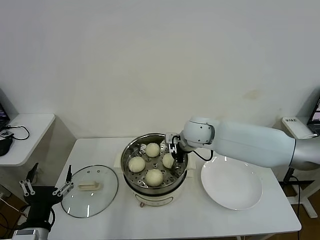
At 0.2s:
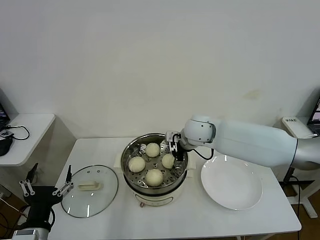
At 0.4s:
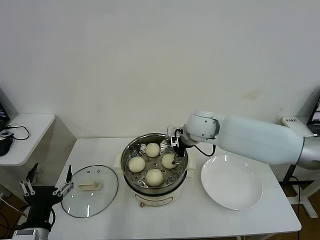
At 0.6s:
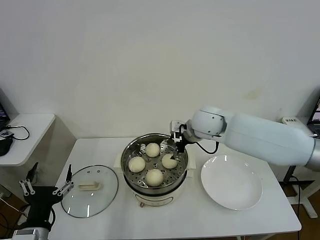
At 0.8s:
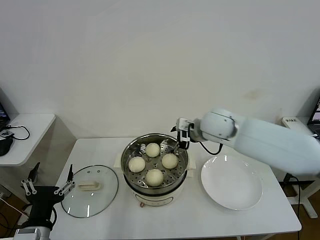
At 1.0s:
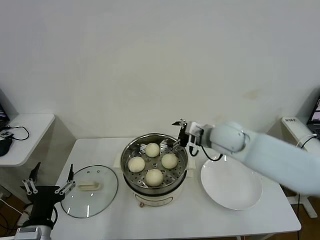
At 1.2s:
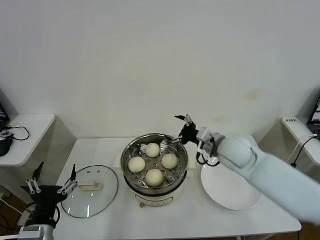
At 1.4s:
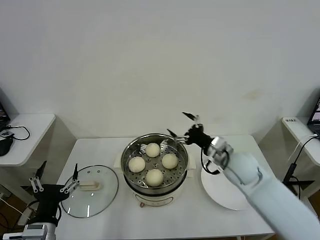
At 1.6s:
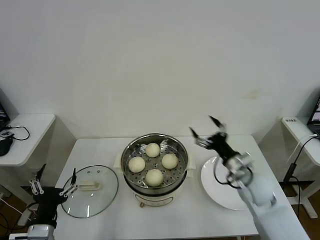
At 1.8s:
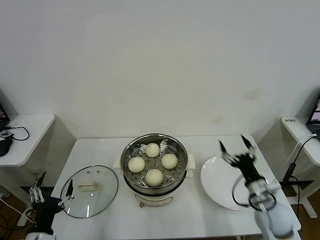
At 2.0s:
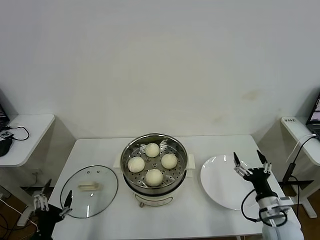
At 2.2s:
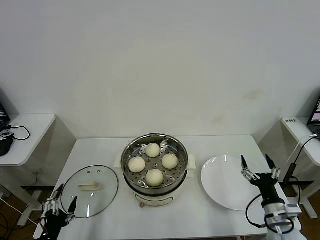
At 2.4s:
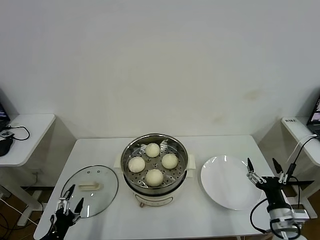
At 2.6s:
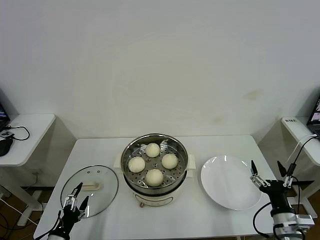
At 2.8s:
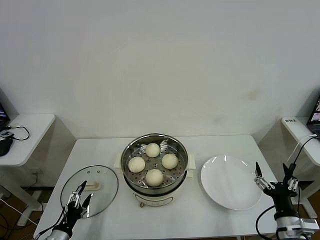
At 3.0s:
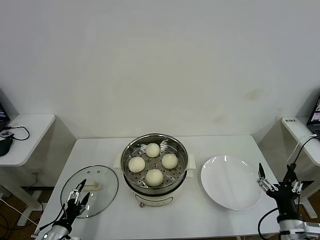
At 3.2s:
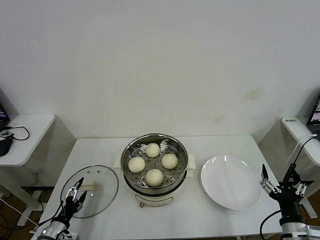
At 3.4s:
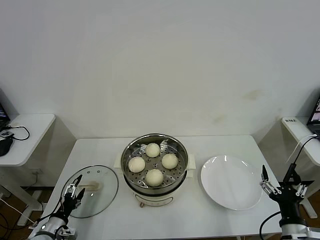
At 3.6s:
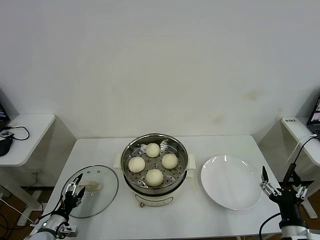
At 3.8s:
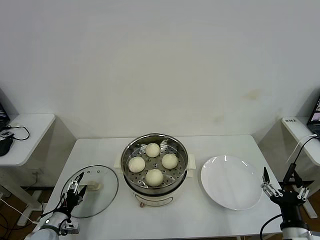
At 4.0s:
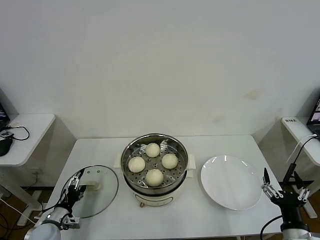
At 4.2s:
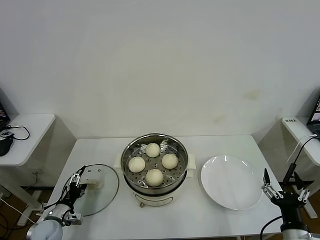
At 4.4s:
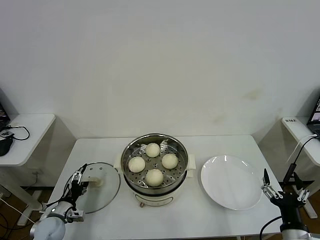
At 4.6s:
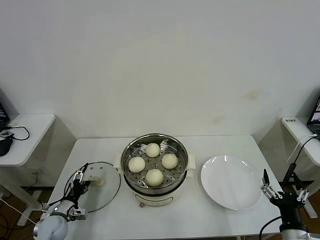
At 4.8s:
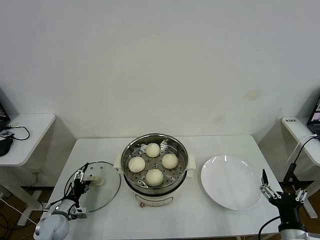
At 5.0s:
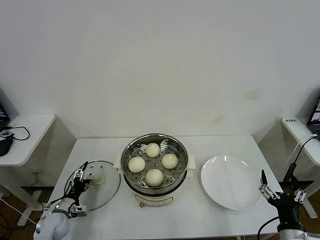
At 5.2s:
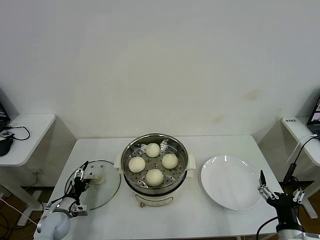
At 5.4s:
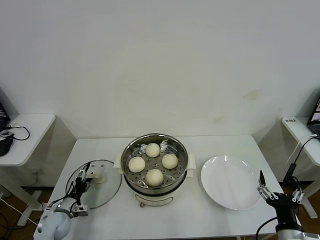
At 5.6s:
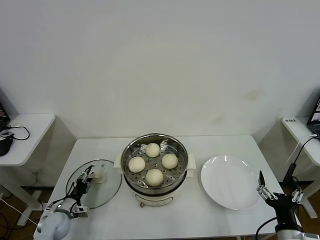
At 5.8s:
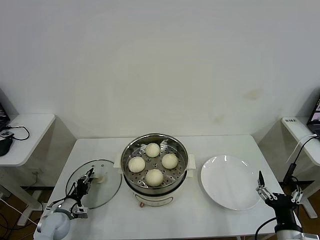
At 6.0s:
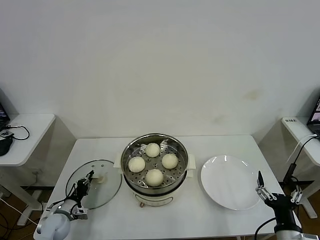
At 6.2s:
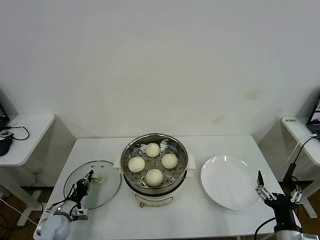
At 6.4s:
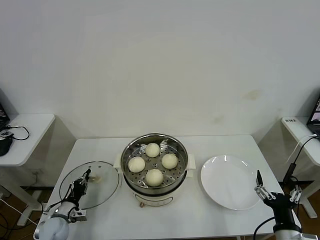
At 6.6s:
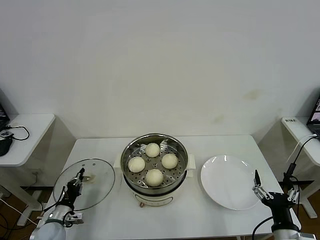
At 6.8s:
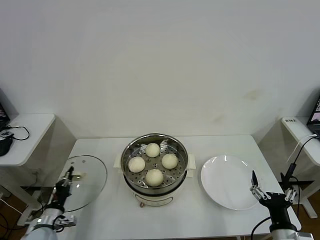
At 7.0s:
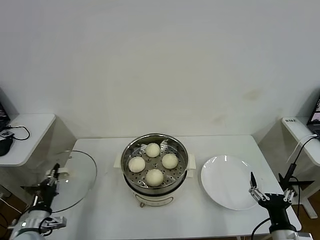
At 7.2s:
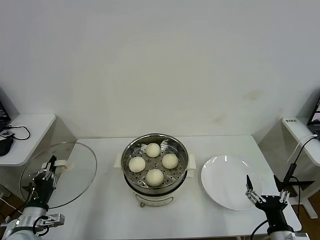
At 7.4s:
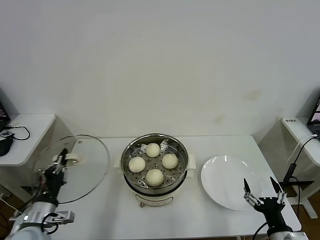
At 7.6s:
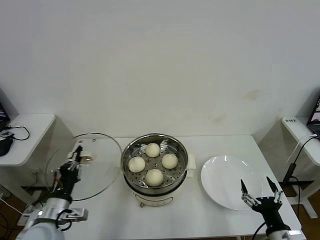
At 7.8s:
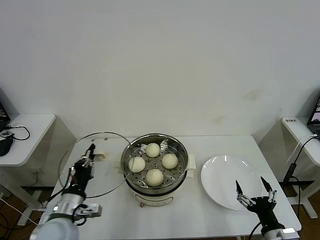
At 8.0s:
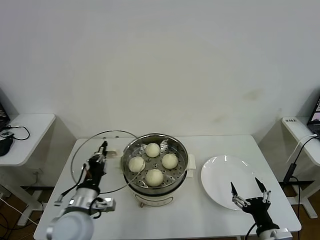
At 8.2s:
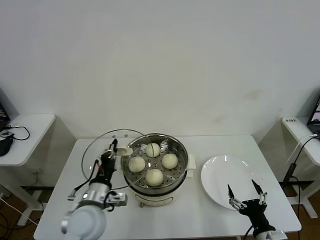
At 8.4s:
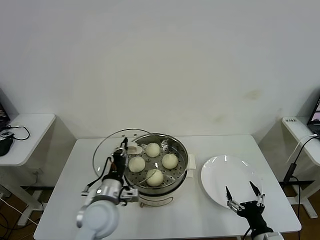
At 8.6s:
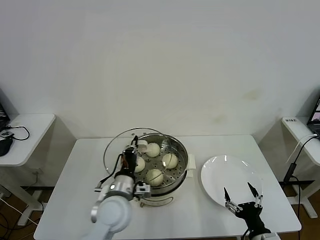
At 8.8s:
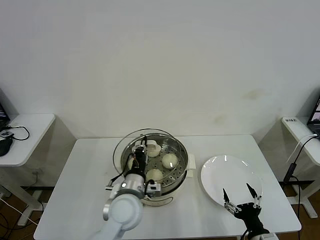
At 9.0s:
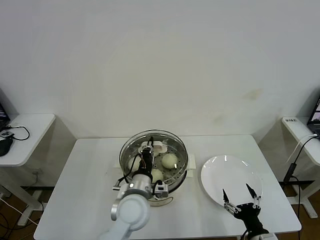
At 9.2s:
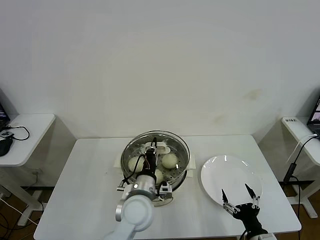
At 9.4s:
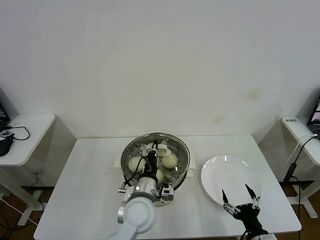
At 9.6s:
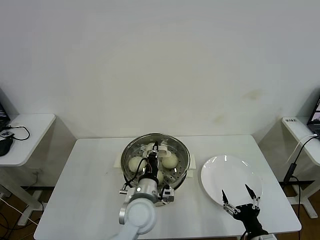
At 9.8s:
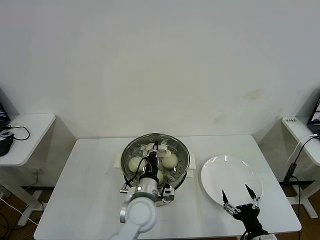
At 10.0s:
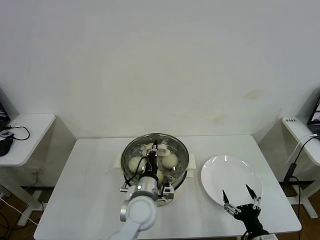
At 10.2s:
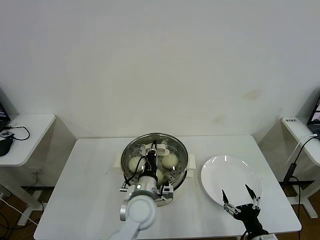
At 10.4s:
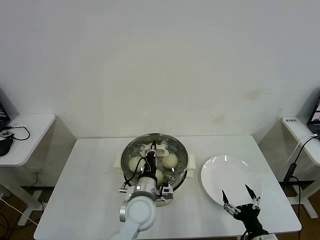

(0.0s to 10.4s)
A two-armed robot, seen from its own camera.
Task of the whole recording: take steamed baozi put them in steamer then cover it.
Step, 0.4s - 6.0s: Grasp the pot lid with left gripper.
0.0s - 1.4s: The right gripper travels to the right and backward by approximately 15 cm, and opens up.
1.4s - 3.0s: The right gripper shifts about 25 cm backward and to the right; the left gripper heads downward and to the left, covering about 20 cm.
3.0s - 4.4s: The left gripper heads forward, covering roughly 10 cm.
4.4s - 6.0s: The left gripper closes its fingers.
6.0s - 7.4s: The left gripper shifts roughly 20 cm upward and backward.
7.4s - 9.0s: The left gripper heads to the right, covering approximately 25 cm.
9.0s - 10.4s: The grippers make only small movements.

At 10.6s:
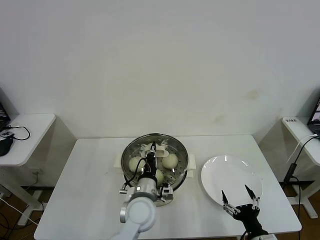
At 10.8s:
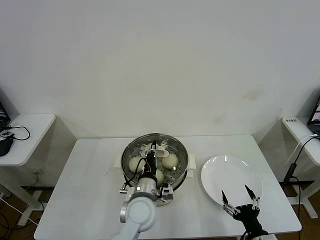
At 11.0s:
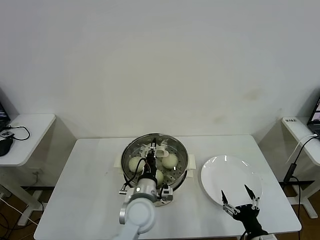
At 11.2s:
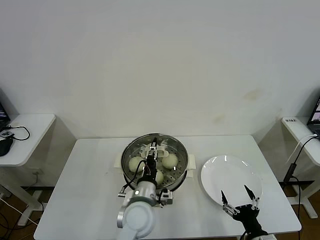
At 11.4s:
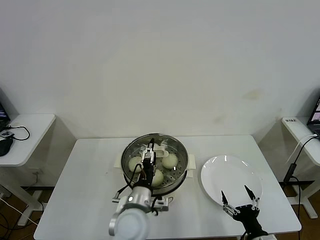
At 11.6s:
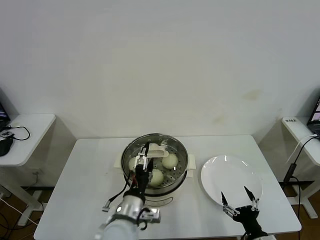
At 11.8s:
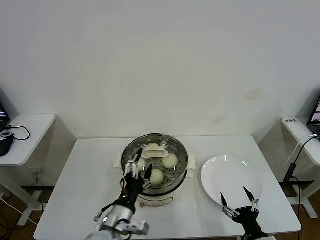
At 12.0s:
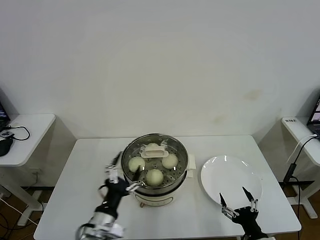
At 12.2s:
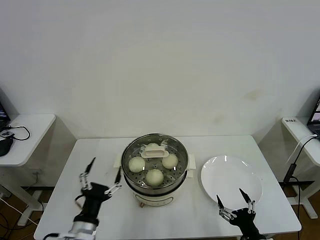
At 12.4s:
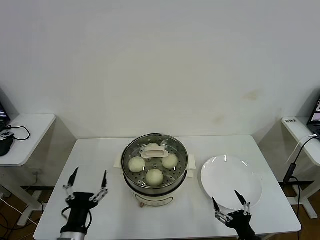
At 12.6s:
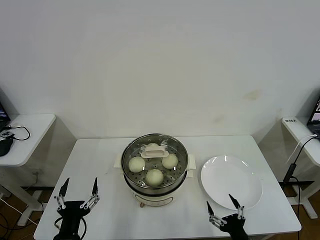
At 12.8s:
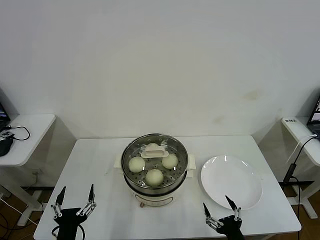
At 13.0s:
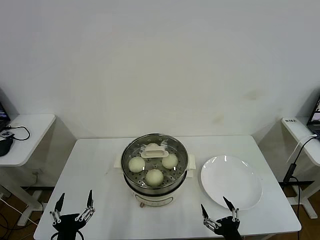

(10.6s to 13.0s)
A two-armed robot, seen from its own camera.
Task of the whole recording: take steamed baozi put them in steamer then cover it.
10.6s - 11.8s: The left gripper goes about 10 cm backward and to the left, and opens.
11.8s - 13.0s: The left gripper shifts about 15 cm to the left and backward. The right gripper changes place by roughly 5 cm.
